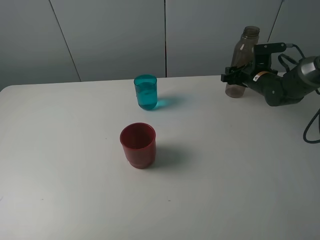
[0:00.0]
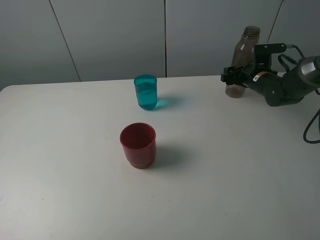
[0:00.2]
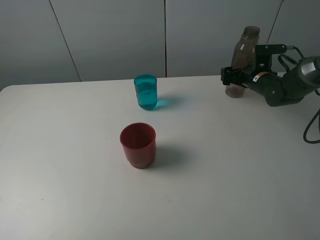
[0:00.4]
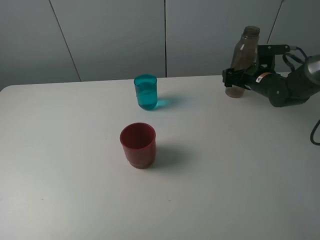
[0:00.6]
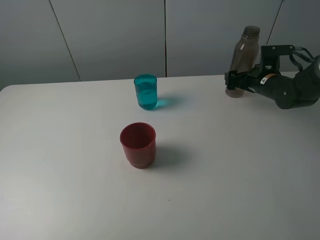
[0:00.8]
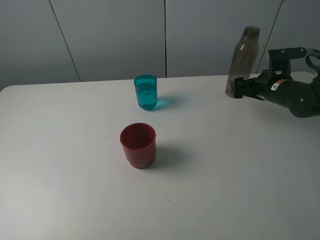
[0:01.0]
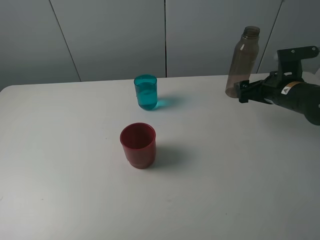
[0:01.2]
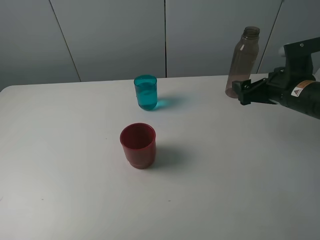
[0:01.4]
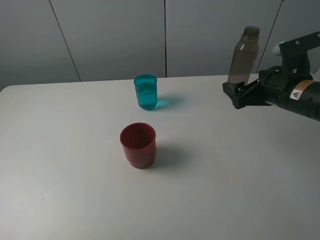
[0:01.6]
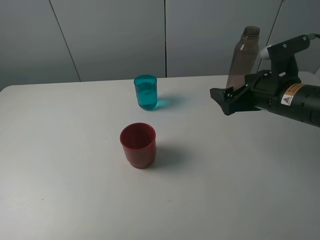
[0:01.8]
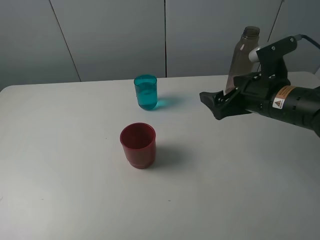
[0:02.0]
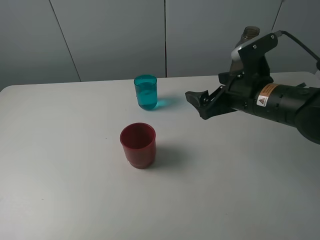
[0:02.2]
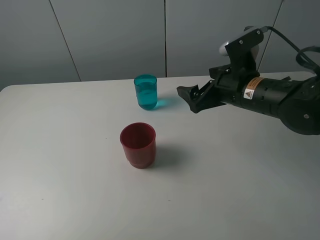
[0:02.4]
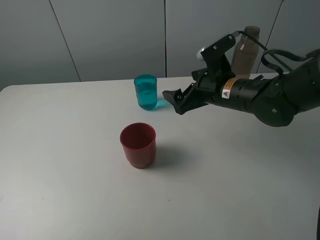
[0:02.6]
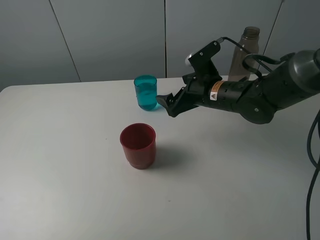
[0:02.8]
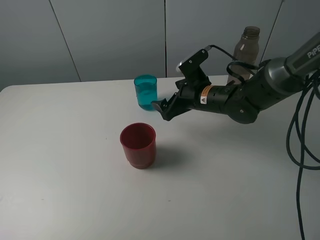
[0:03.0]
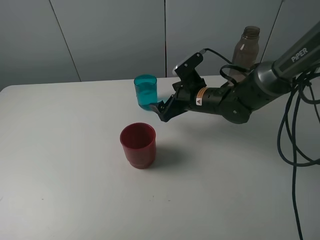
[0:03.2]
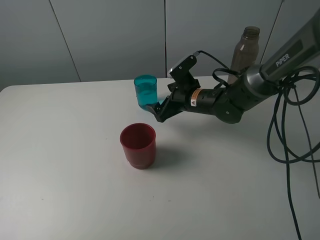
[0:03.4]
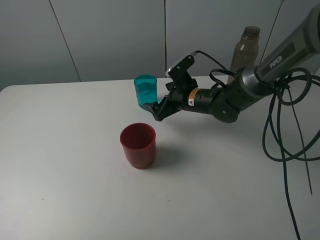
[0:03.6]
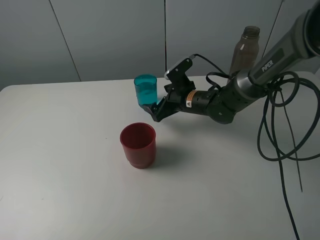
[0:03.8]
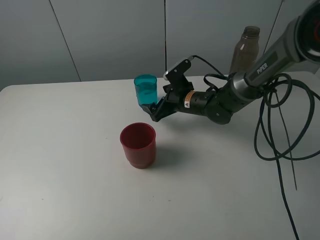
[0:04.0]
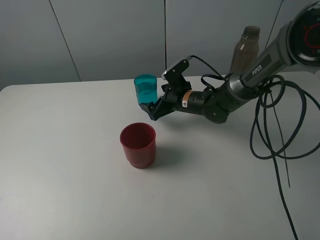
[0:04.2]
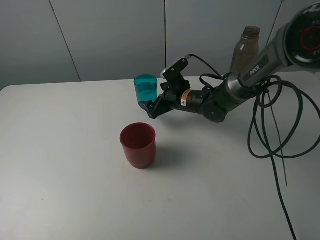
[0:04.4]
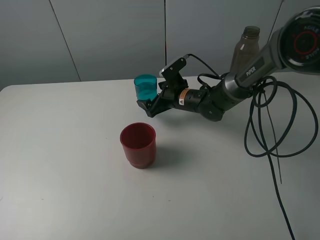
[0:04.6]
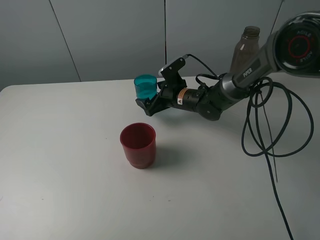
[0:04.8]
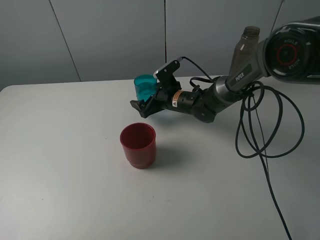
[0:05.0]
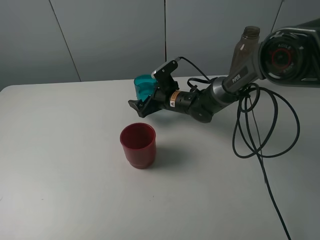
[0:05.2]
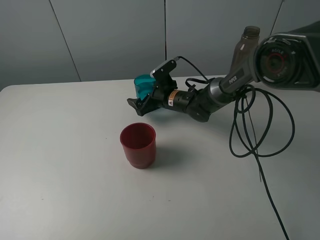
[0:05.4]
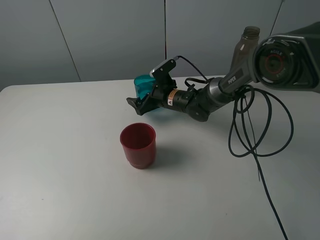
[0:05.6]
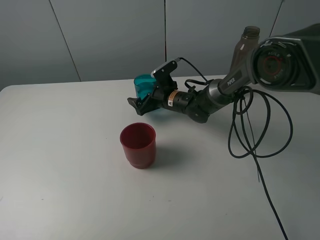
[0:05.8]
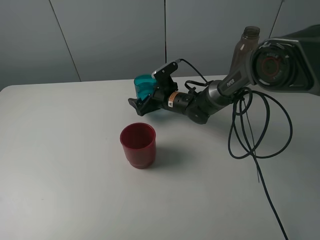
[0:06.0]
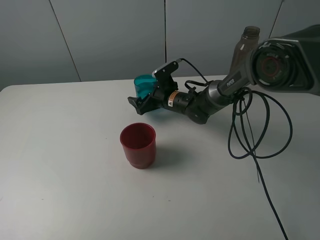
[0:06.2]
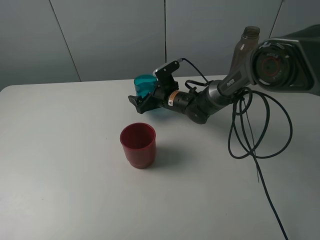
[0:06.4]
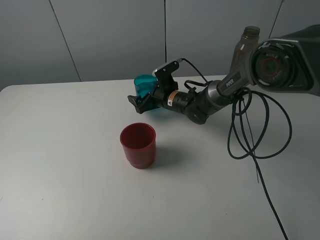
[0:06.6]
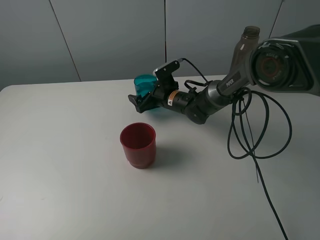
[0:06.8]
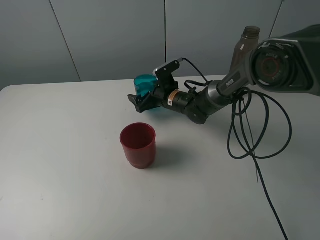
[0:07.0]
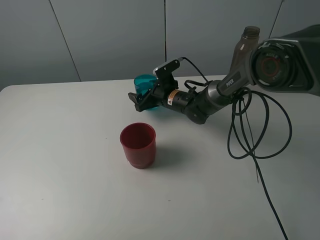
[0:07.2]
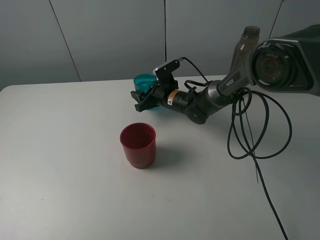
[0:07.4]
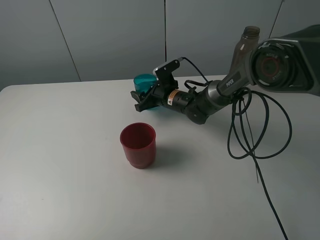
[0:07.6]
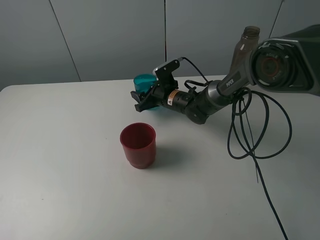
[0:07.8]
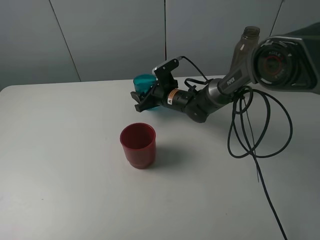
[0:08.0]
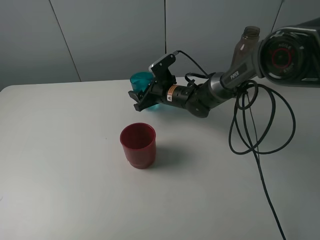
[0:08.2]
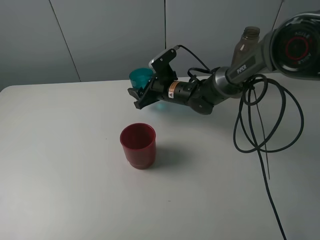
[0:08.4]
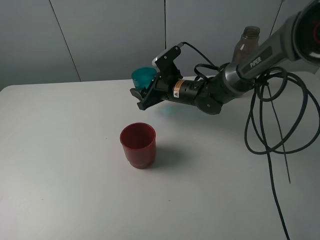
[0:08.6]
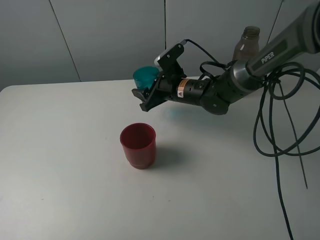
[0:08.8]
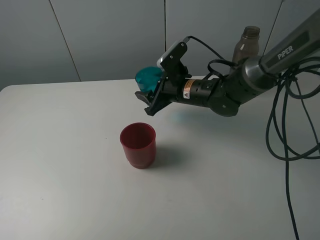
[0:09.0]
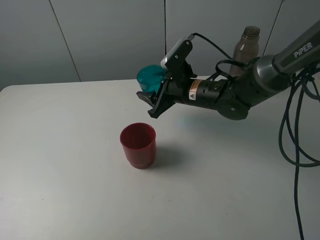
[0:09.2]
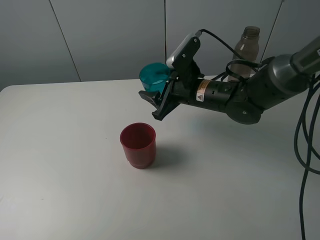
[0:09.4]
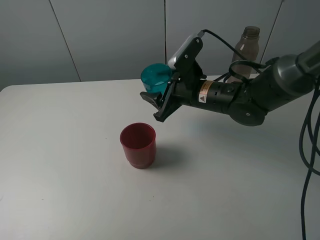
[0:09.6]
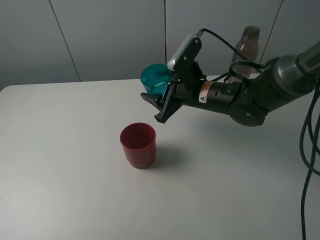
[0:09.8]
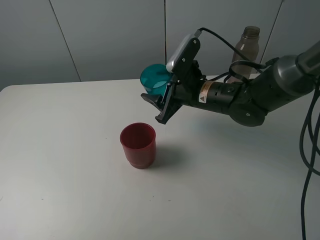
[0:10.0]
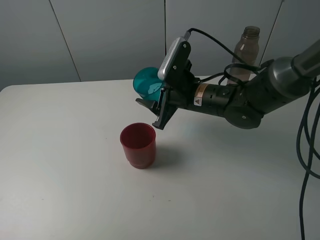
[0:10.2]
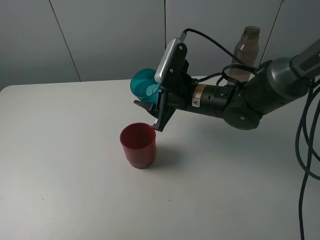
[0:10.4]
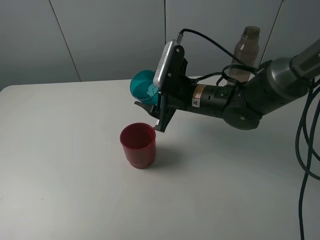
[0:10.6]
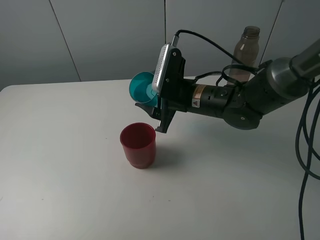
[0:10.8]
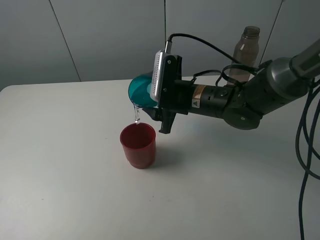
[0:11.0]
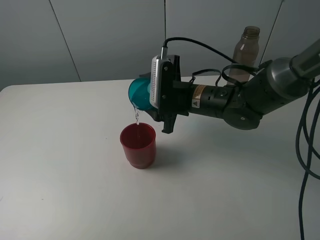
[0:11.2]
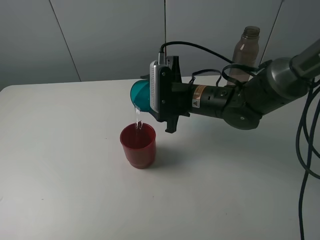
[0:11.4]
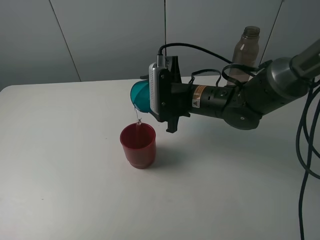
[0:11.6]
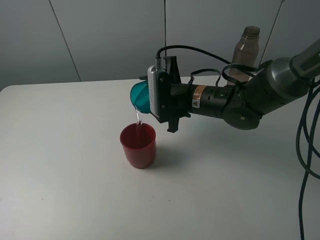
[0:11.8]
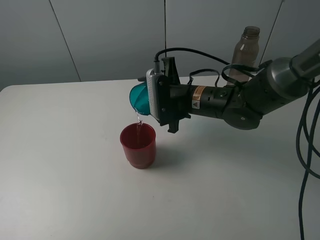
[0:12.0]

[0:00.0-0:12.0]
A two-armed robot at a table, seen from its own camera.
Task of the whole recording: pick up the bottle and pour water into the cup, then pick up the cup containing water and pour it into another cup.
Step, 0:00.8 to 0:07.4: Grasp the blue cup with the right gripper.
0:00.0 to 0:01.6: The right gripper heads backward and upward, covering some 20 cm, and opens its fingers.
0:01.6 to 0:03.0: The right gripper shifts roughly 15 cm to the left, forward and downward.
0:03.0 to 0:04.4: The right gripper goes approximately 5 cm forward.
0:04.4 to 0:06.0: The grippers stay close to where they were, moving slightly.
0:06.0 to 0:07.6: The right gripper closes.
0:07.6 to 0:09.0: The right gripper heads upward and backward, covering about 10 cm.
0:09.0 to 0:10.4: The right gripper is displaced backward by roughly 5 cm.

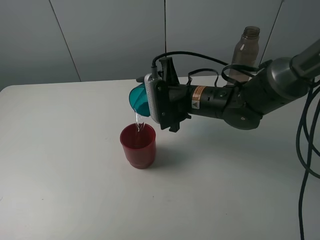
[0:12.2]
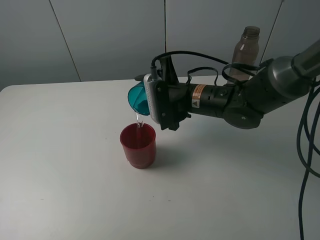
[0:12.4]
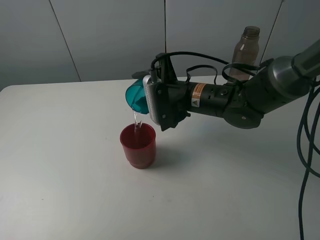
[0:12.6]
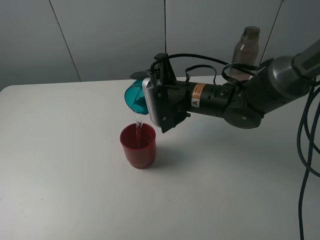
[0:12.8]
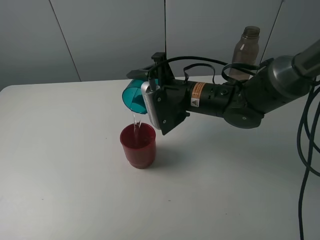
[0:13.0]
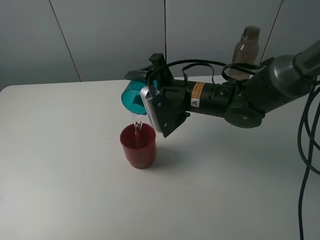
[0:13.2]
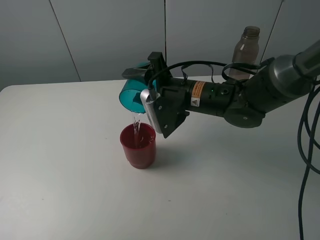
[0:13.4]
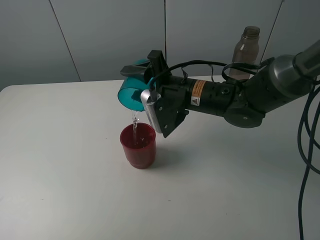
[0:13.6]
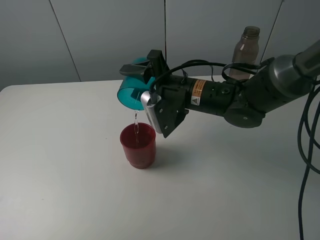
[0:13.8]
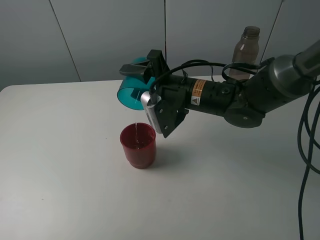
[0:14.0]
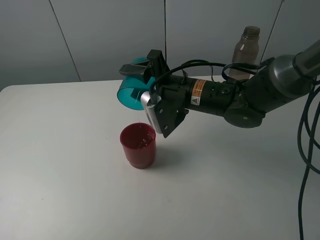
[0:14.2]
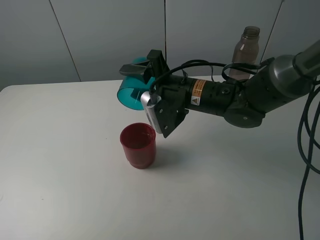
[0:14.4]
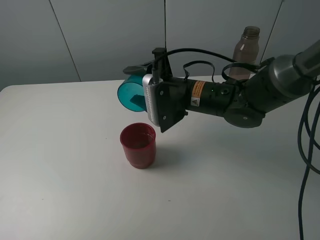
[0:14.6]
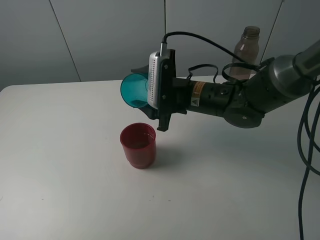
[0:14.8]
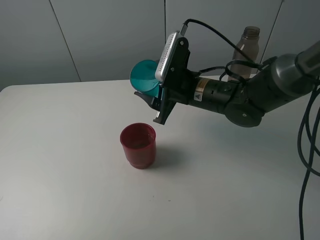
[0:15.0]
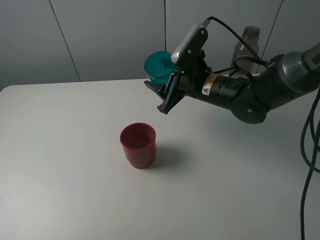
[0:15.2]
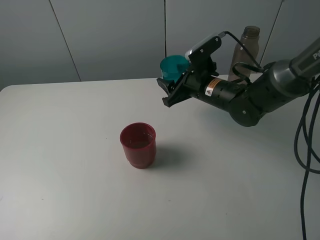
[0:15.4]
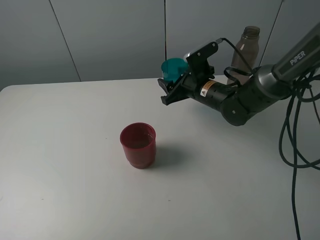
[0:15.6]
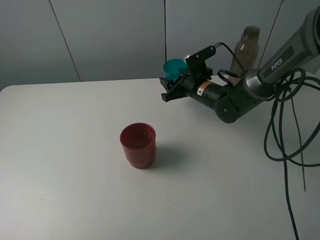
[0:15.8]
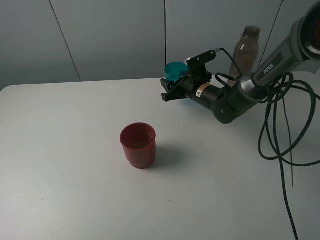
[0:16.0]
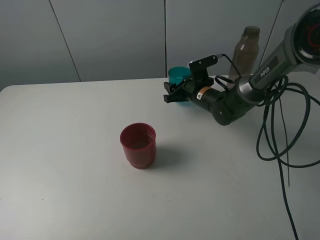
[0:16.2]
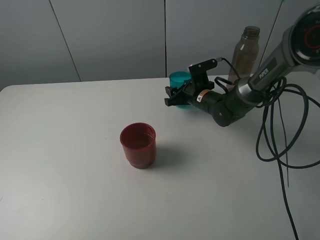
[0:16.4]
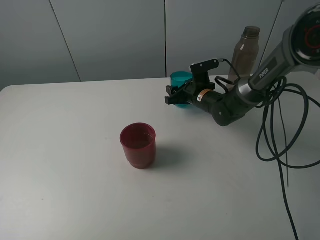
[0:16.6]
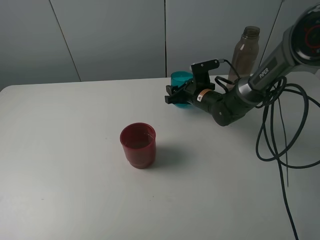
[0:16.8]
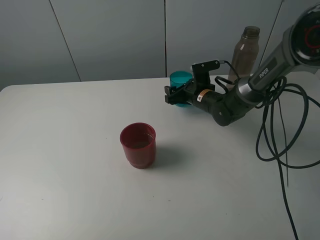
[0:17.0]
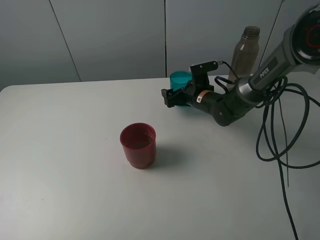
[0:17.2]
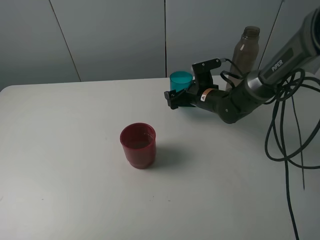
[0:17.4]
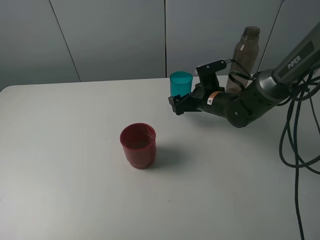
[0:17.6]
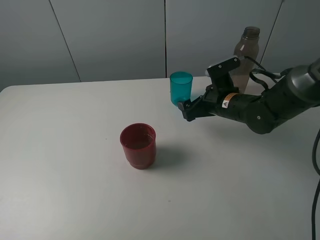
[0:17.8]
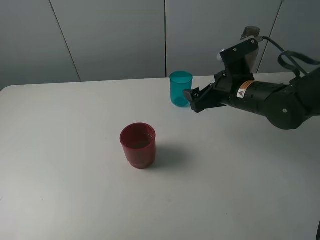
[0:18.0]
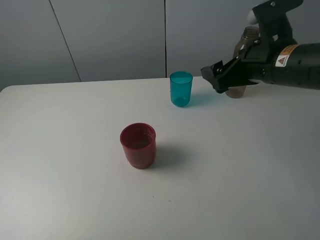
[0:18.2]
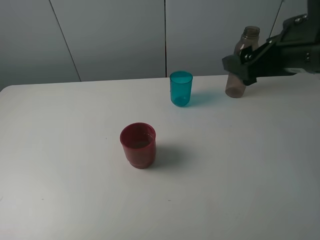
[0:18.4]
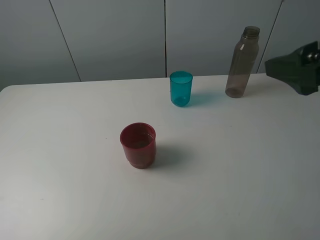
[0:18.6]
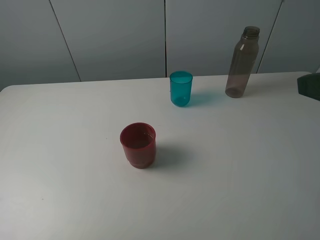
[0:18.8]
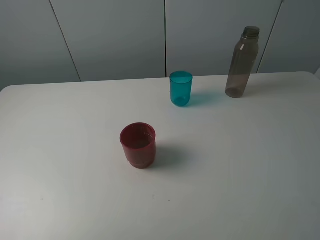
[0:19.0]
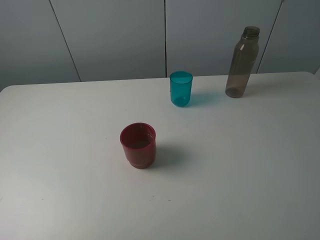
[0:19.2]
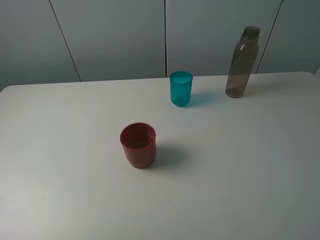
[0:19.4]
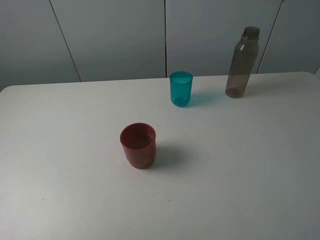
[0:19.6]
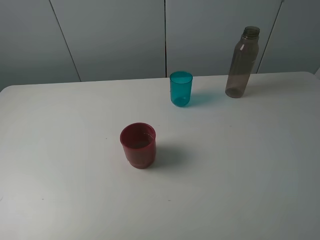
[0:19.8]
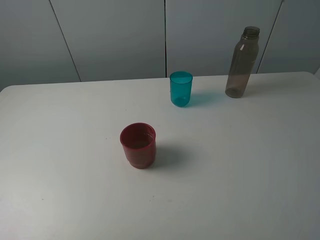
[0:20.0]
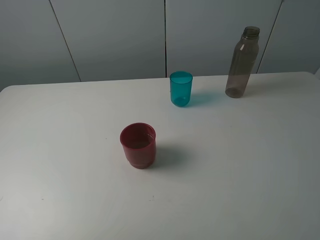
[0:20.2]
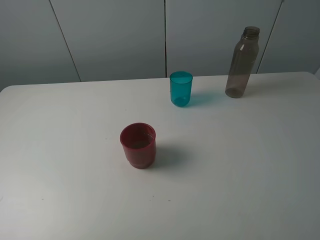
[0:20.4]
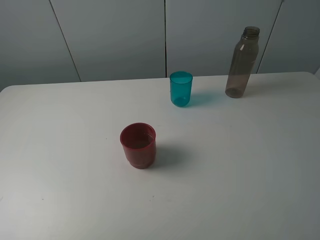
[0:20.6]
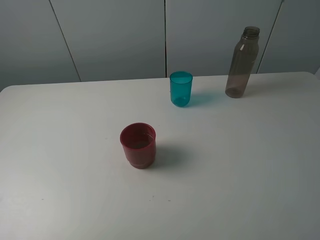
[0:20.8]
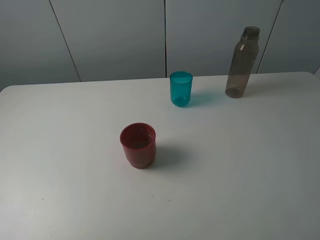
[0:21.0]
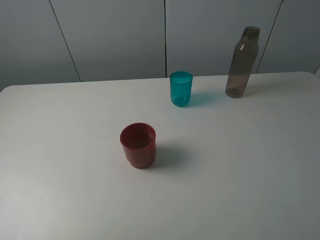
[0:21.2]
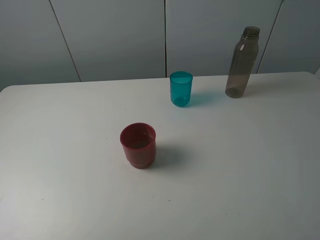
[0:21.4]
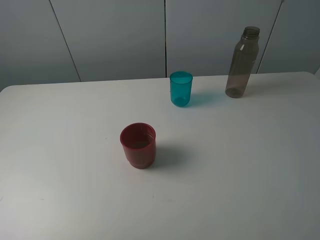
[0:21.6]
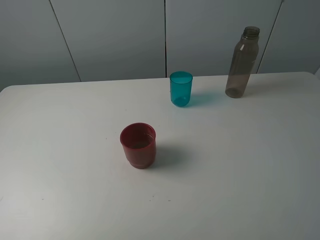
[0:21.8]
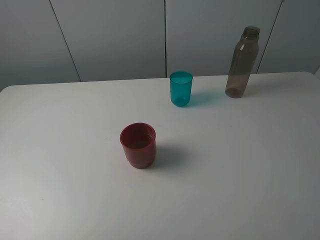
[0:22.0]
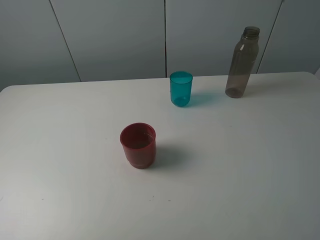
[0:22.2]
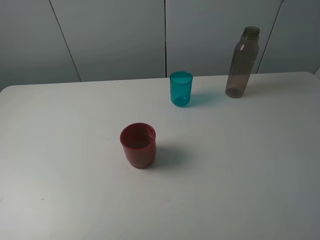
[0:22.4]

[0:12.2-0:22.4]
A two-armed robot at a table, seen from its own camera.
Task of the whole recording: pick up the bottle and pour water into the cup, then pick up the cup containing water and pour it into another cup.
Step, 0:12.2 to 0:14.2: Pour water from blue cup to red cup with the right gripper.
Step, 0:14.4 to 0:17.2: Place the blue cup with the right gripper.
0:13.6 to 0:15.2: The right gripper moves approximately 5 cm.
0:15.2 to 0:16.6: The right gripper heads downward and forward, covering some 15 cm.
0:16.6 to 0:18.0: The right gripper shifts approximately 15 cm upward and backward, and opens its fingers.
0:18.0 to 0:19.4: The right gripper shifts roughly 35 cm backward, upward and to the right.
